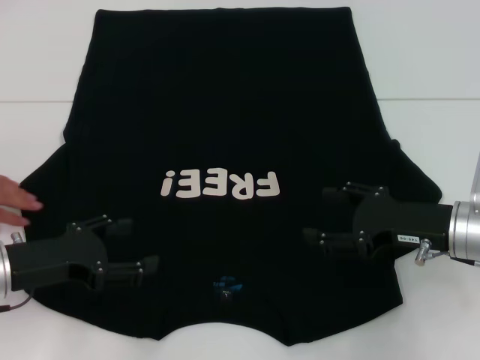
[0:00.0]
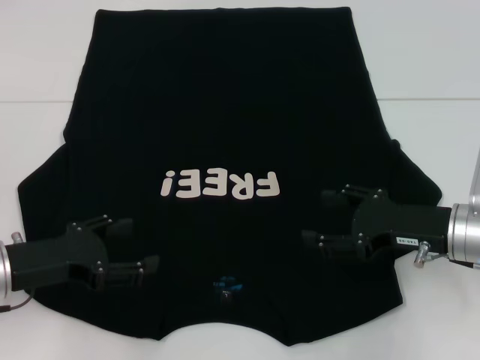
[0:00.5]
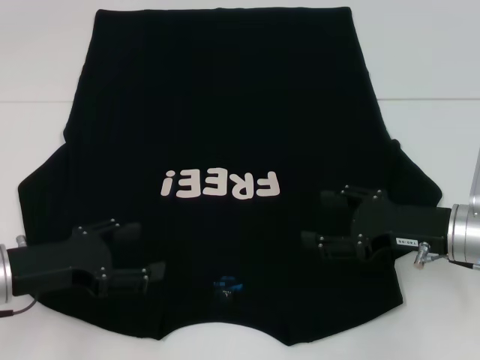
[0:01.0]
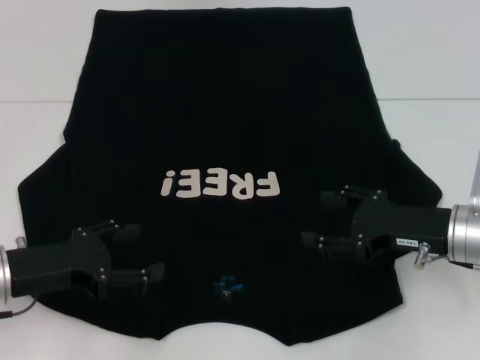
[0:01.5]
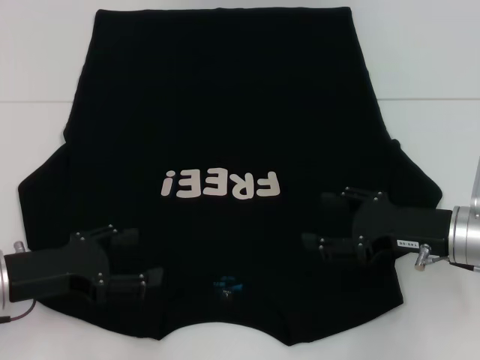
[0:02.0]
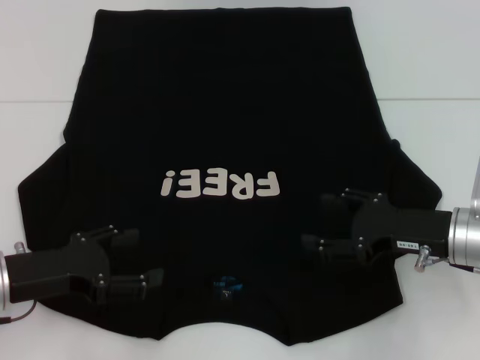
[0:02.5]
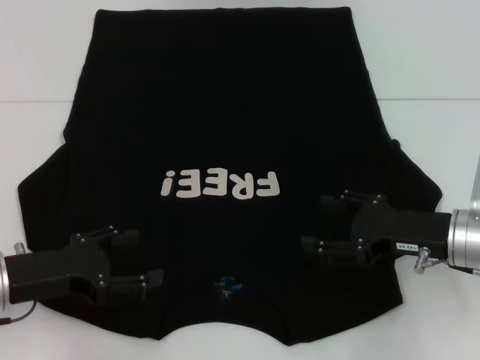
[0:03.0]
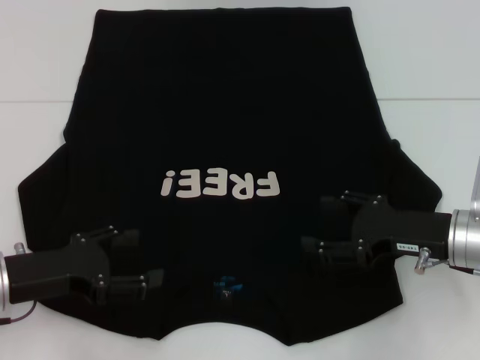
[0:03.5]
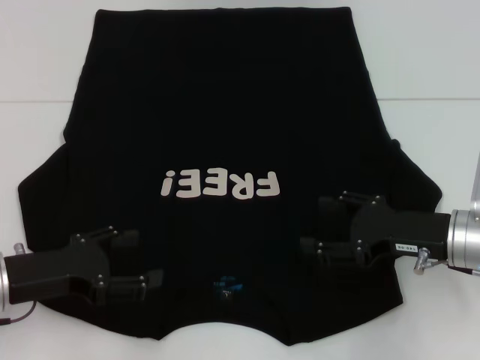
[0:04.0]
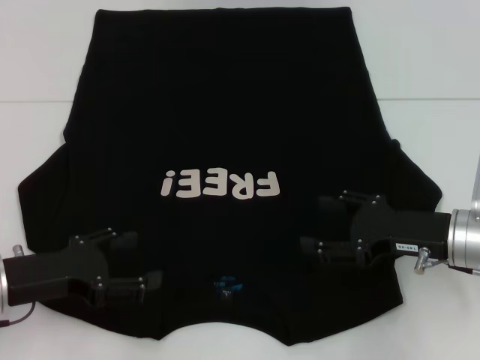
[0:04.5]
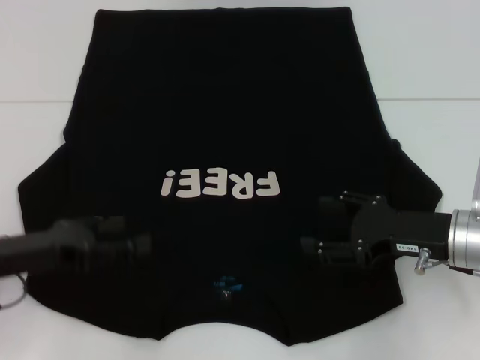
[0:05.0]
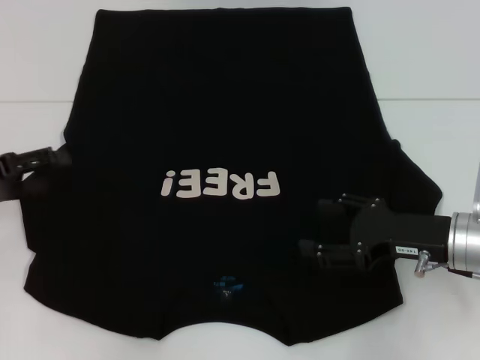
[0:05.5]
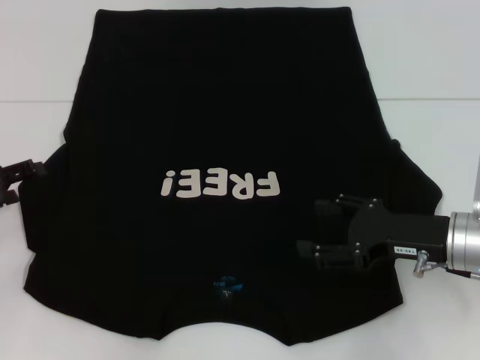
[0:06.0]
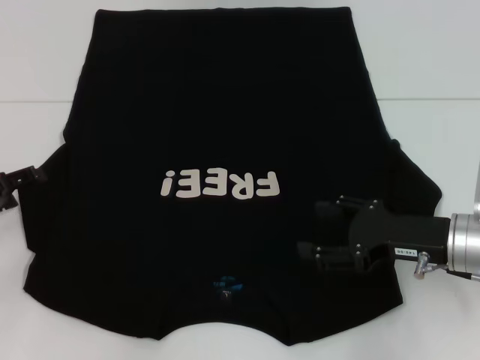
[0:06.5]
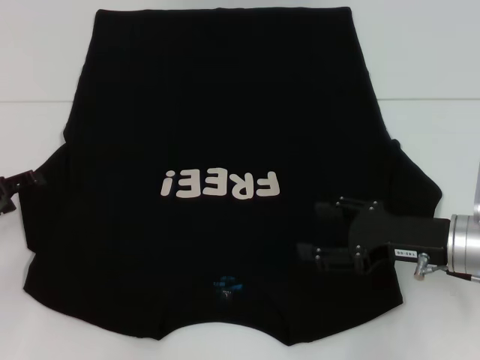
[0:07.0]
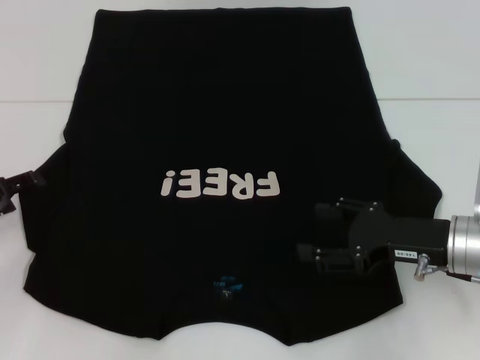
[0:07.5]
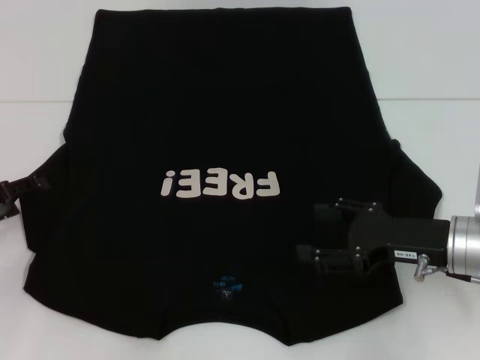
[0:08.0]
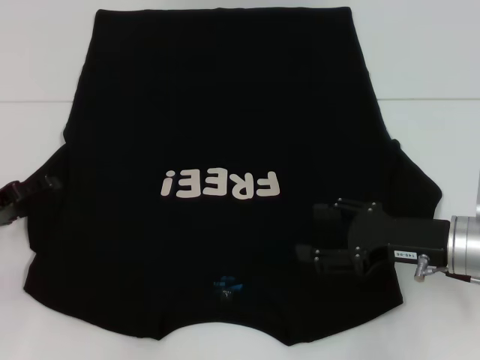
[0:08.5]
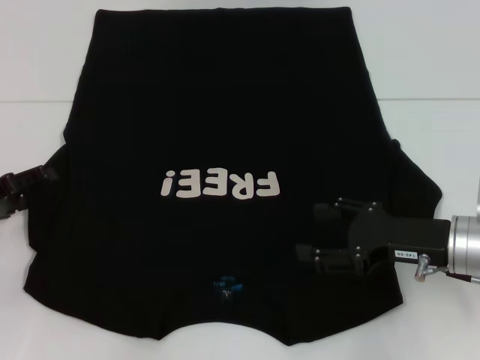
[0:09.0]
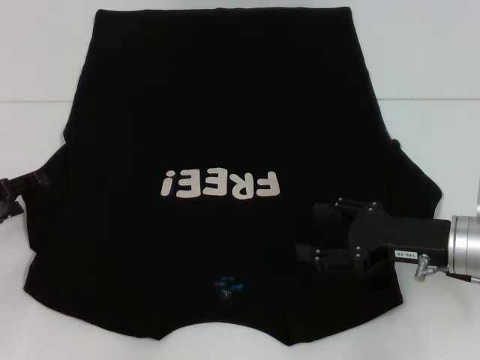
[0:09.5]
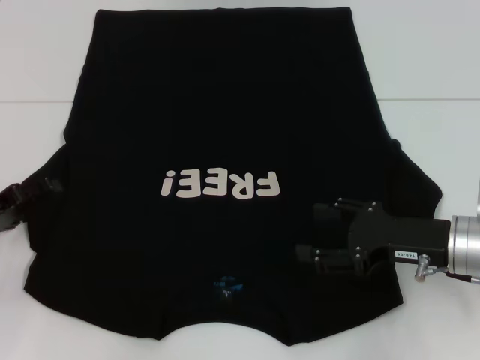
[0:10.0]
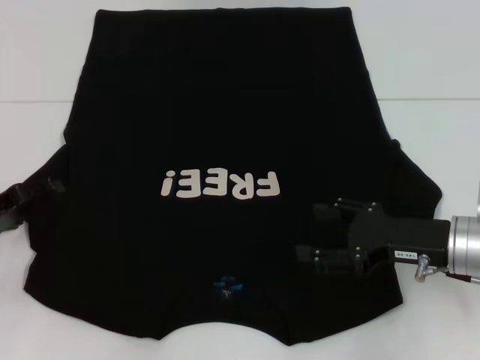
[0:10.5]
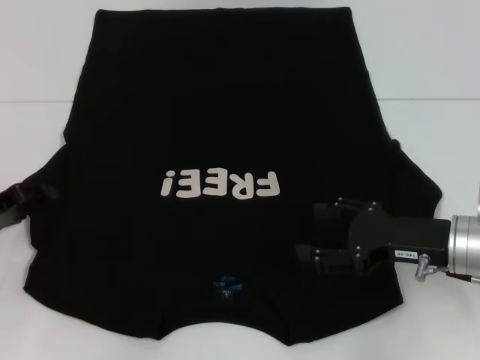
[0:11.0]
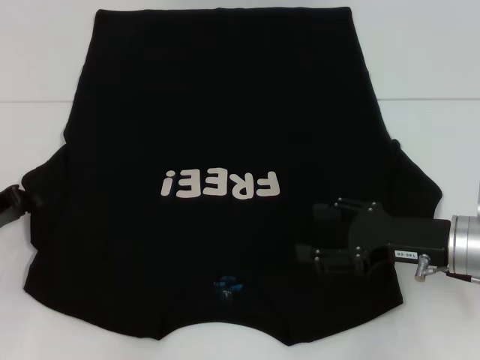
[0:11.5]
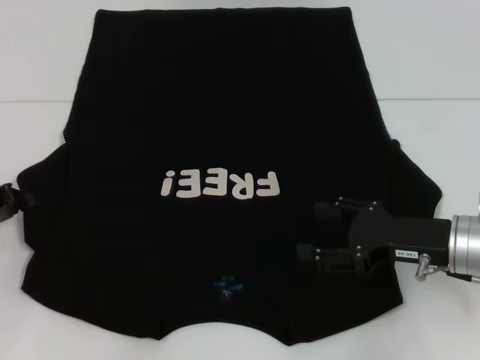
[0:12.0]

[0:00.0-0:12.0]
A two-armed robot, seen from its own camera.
0.0 to 4.0 s: Both grippers stay about where they are.
4.0 to 6.0 s: The left gripper is displaced to the left and forward by some 10 cm.
6.0 to 8.0 s: The grippers move only a little.
10.0 to 12.0 s: The left gripper closes up.

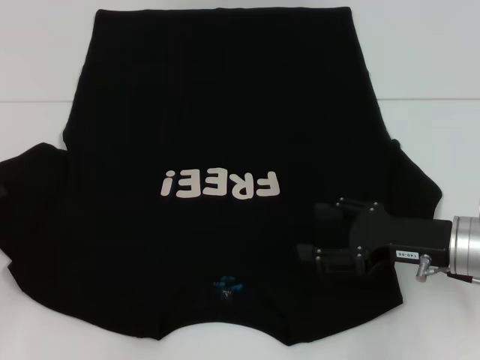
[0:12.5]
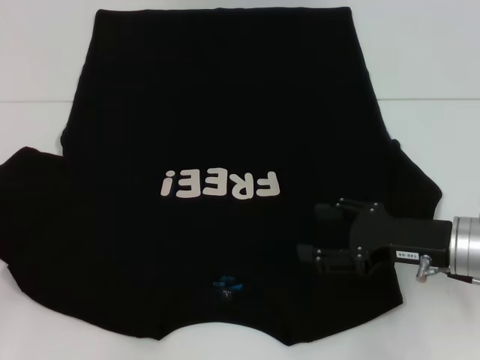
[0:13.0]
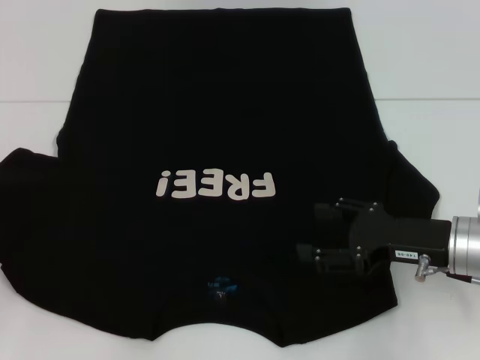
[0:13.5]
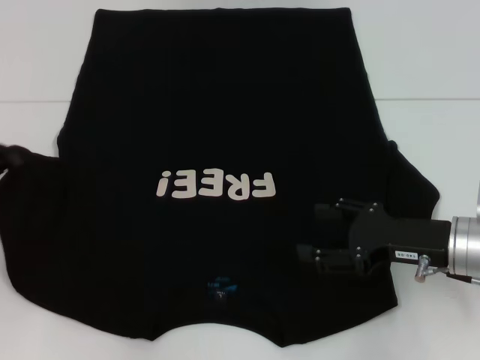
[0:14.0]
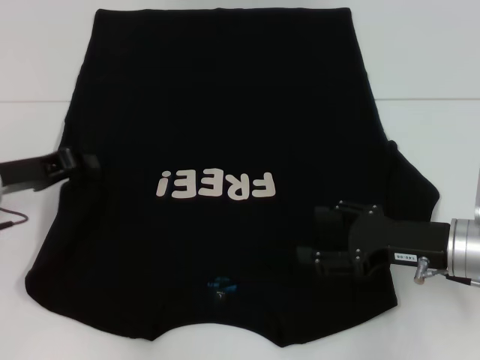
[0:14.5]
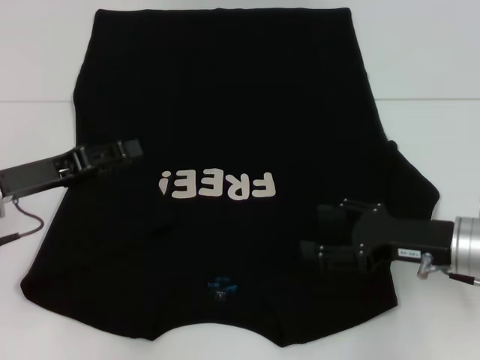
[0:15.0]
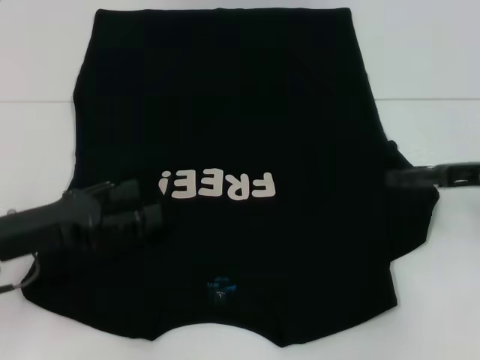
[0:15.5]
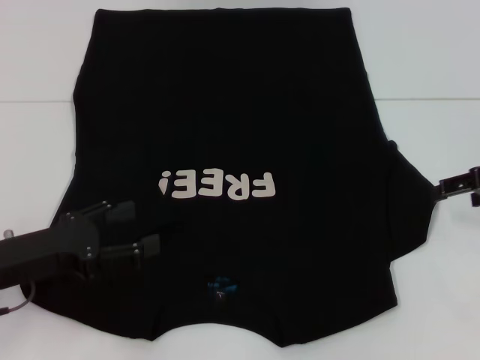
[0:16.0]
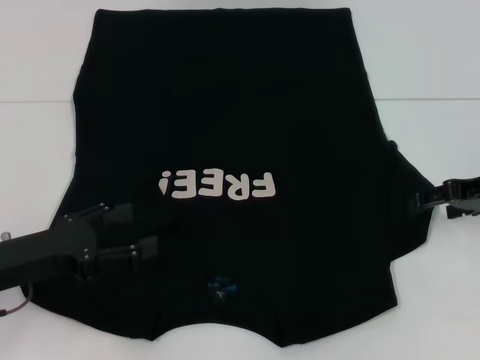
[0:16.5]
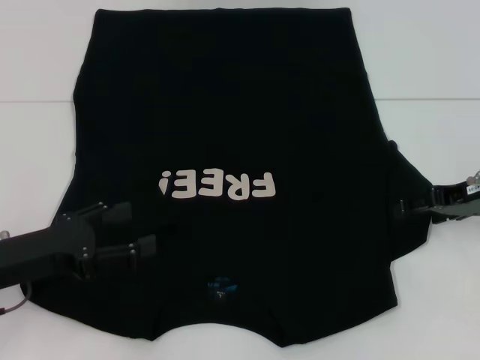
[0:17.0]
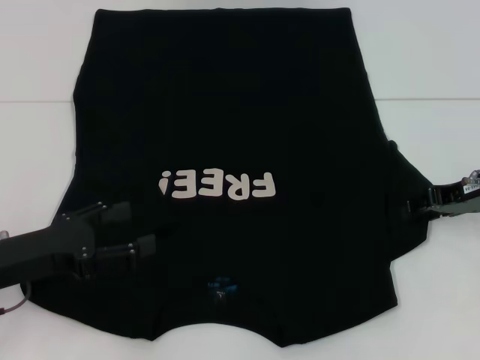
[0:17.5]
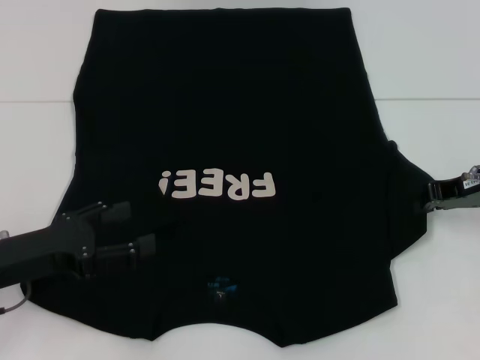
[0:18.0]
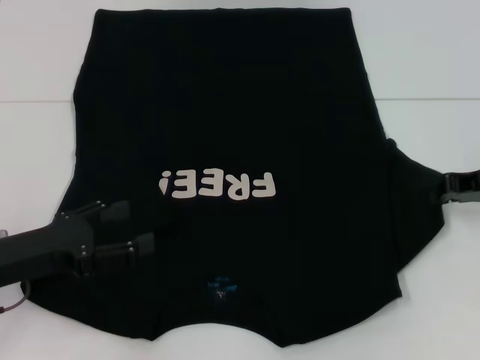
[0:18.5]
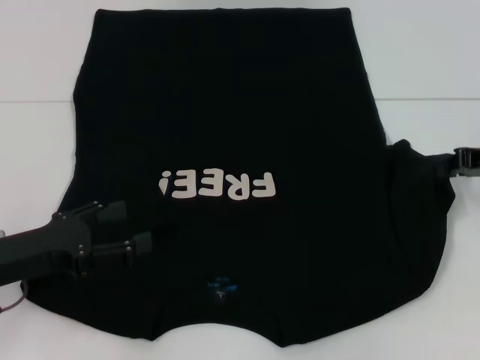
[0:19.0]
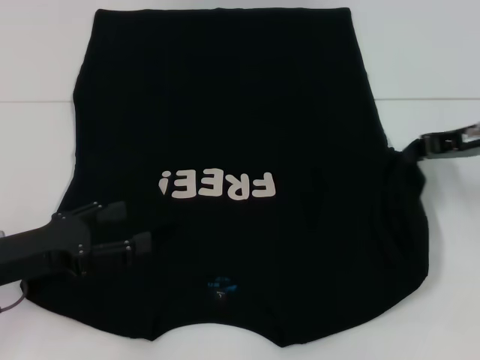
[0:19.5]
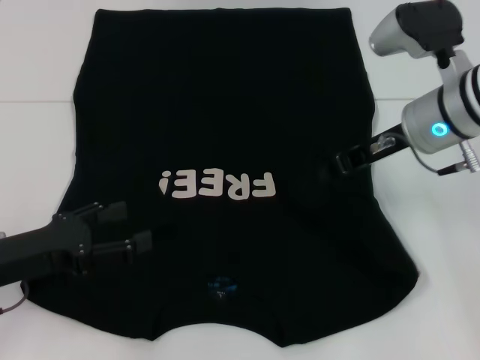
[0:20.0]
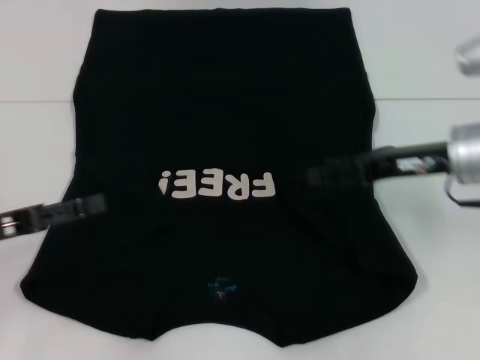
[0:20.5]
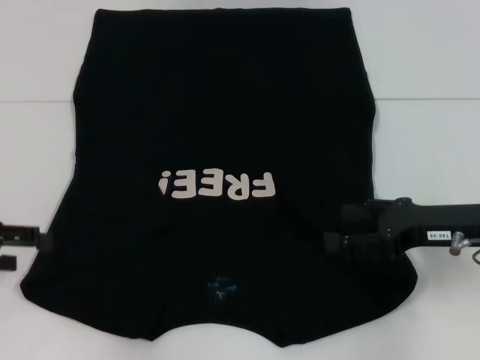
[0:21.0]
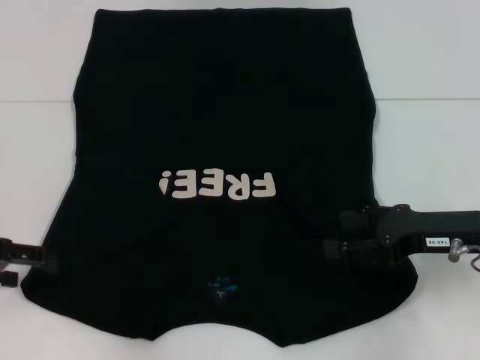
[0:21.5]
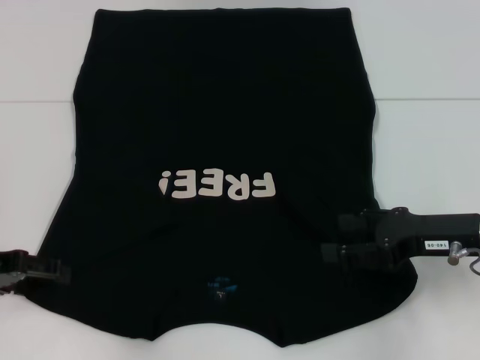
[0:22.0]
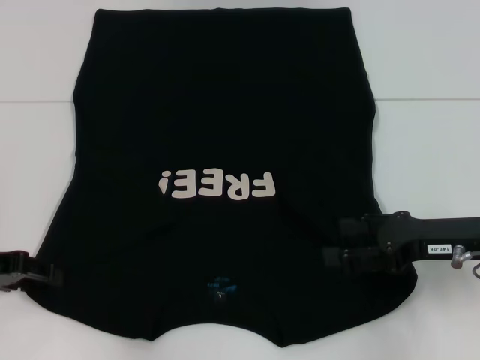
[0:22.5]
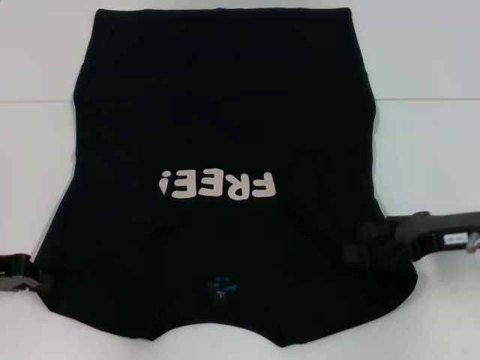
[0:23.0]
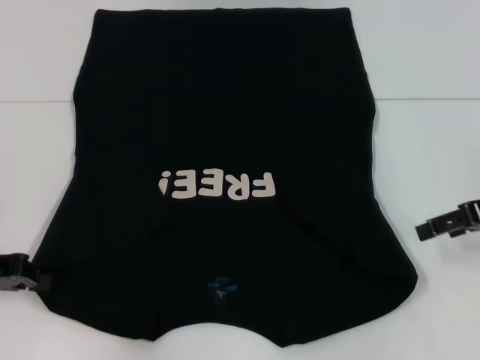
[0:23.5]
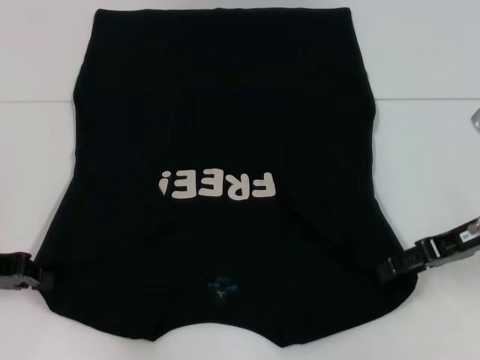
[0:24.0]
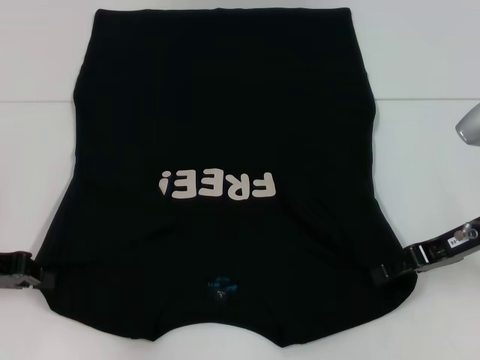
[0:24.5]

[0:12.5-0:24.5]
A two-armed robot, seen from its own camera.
Step, 12.5 to 15.0 s: Fold the bottom left sleeve with your left hand.
Step, 15.5 to 20.5 s: Fold the bottom right sleeve with your right hand.
12.5 to 14.5 s: The left gripper shifts approximately 10 cm to the right.
14.5 to 16.5 s: The left gripper is displaced backward by about 10 cm, and opens its fingers; the right gripper heads forward, to the right and upward, covering roughly 10 cm.
16.5 to 18.5 s: The right gripper closes.
18.5 to 20.5 s: The right gripper travels to the left by approximately 5 cm, and opens.
20.5 to 22.5 s: The right gripper heads backward, covering roughly 5 cm, and opens up.
22.5 to 24.5 s: The left gripper closes up.

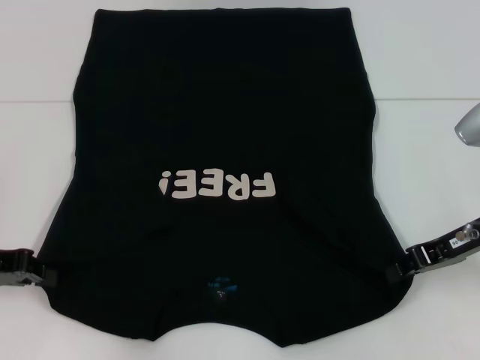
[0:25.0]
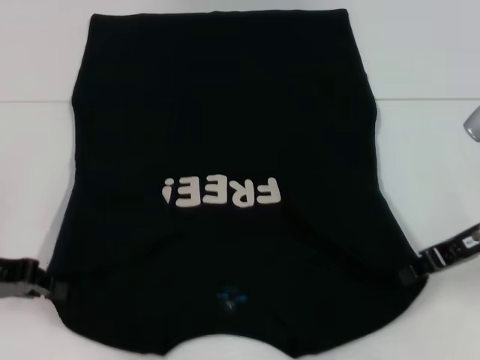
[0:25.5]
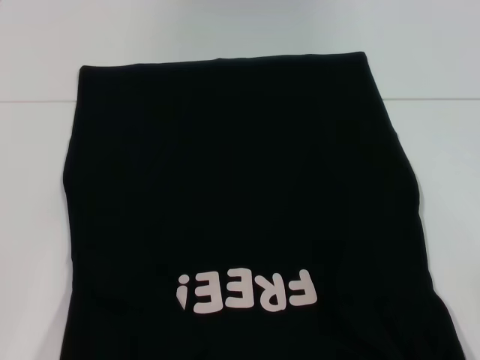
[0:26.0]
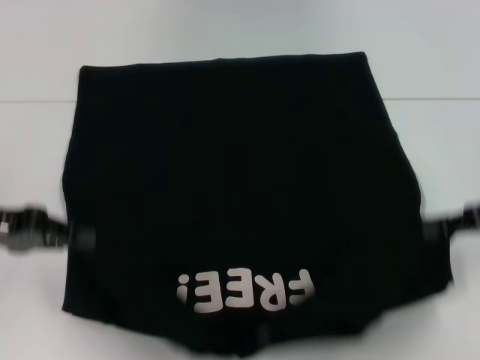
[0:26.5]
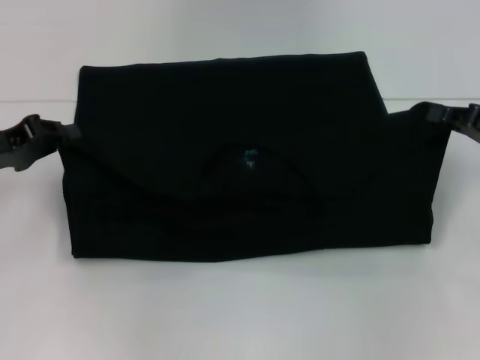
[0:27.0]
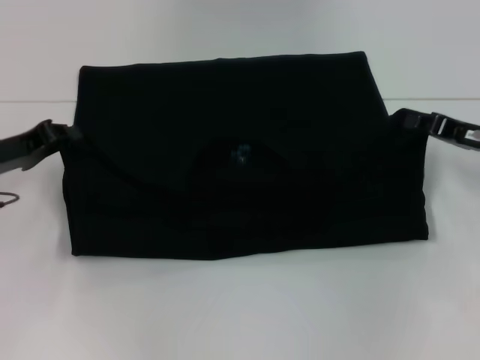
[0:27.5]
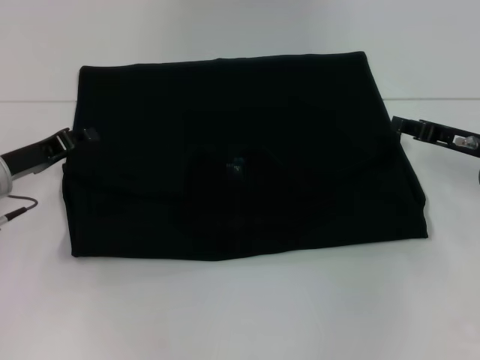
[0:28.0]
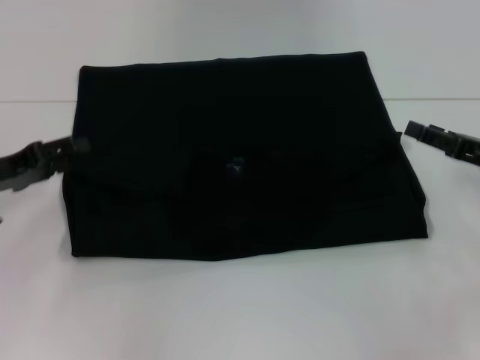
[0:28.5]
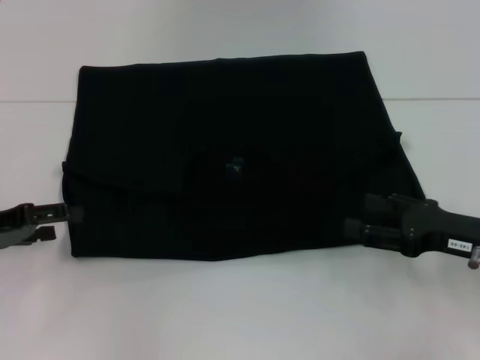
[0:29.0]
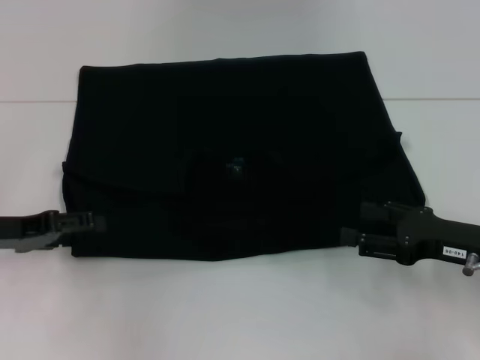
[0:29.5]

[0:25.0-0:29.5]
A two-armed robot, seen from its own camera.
Step, 26.0 to 28.5 s: Fold the clothes with your left hand.
Step, 26.0 to 28.5 s: Fold the clothes with your right hand.
25.0 to 27.0 s: The right gripper heads to the right, covering roughly 5 cm.
27.0 to 29.5 s: The left gripper opens. Meanwhile the right gripper goes roughly 10 cm backward, downward and to the left, and opens its fingers.
